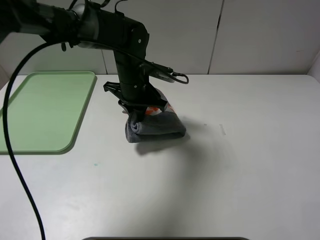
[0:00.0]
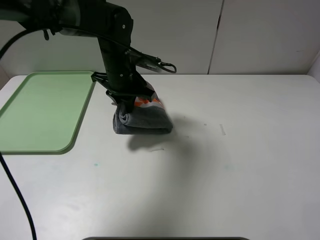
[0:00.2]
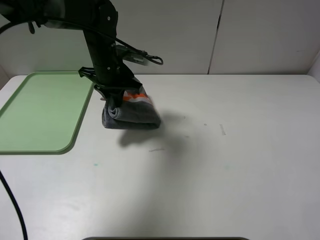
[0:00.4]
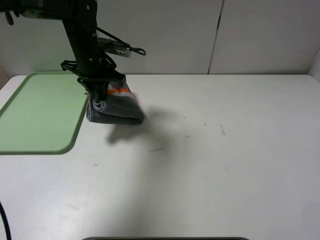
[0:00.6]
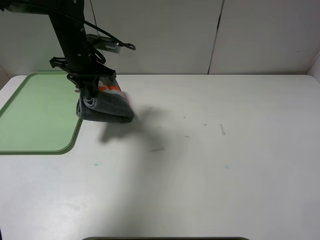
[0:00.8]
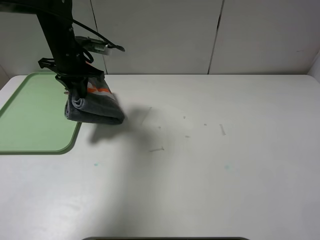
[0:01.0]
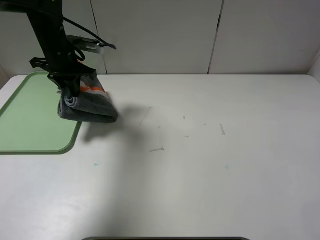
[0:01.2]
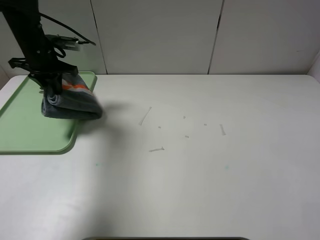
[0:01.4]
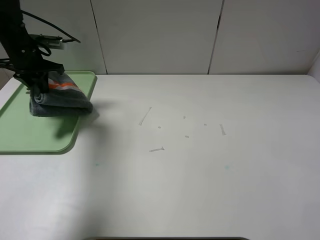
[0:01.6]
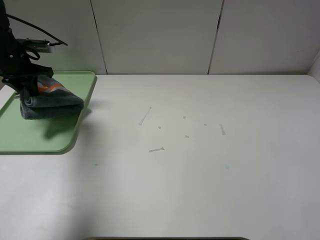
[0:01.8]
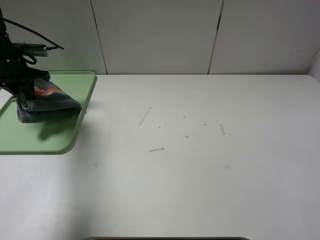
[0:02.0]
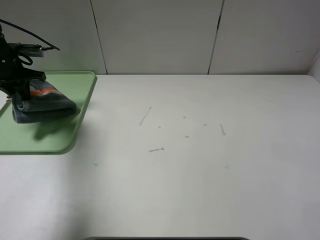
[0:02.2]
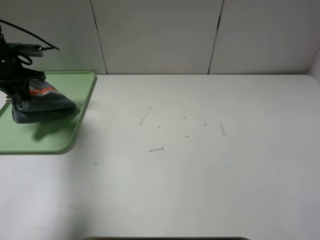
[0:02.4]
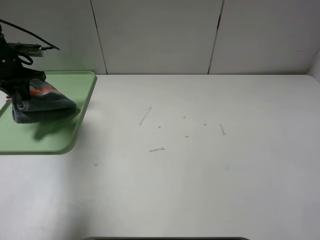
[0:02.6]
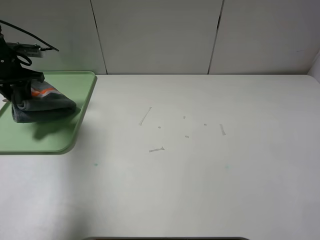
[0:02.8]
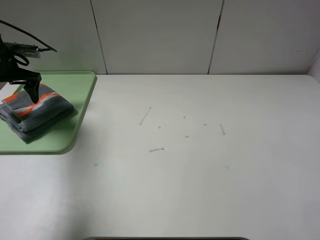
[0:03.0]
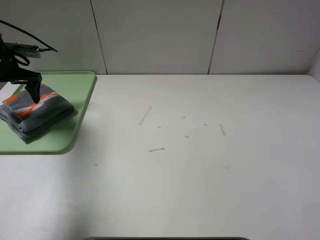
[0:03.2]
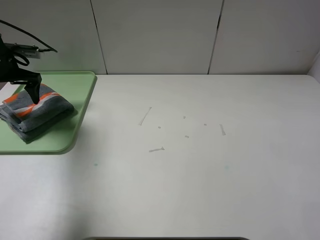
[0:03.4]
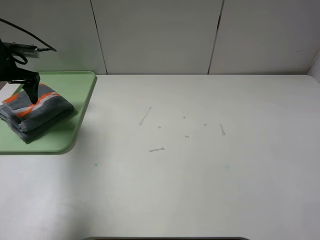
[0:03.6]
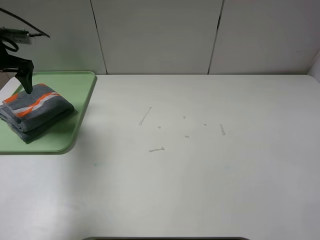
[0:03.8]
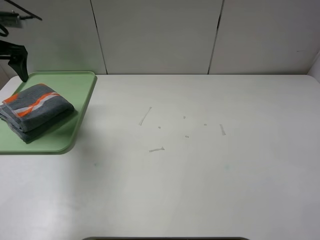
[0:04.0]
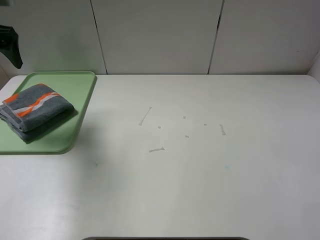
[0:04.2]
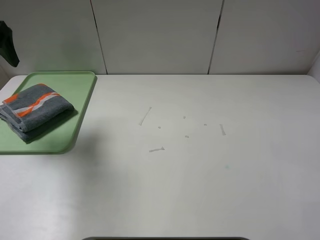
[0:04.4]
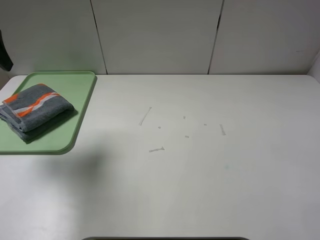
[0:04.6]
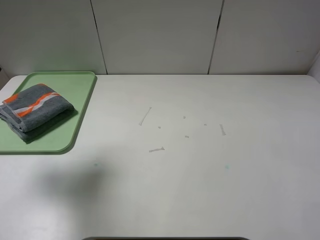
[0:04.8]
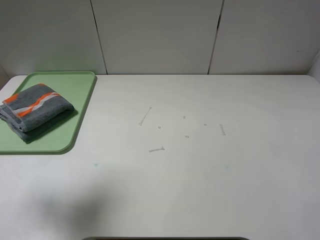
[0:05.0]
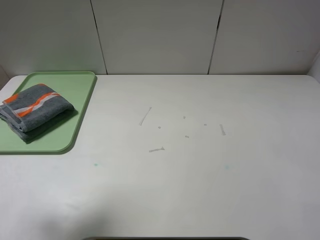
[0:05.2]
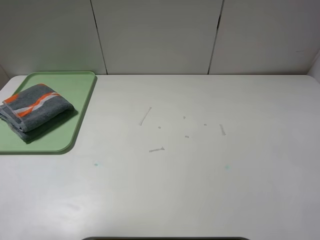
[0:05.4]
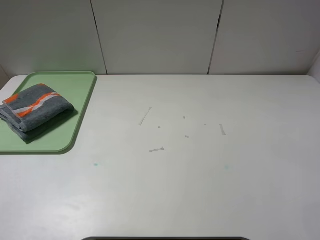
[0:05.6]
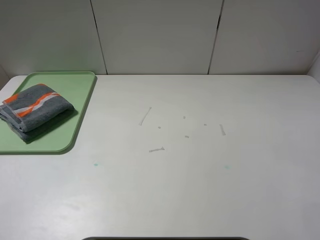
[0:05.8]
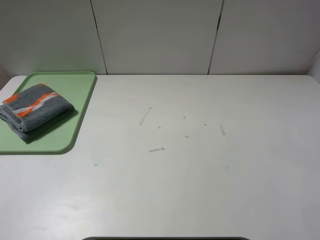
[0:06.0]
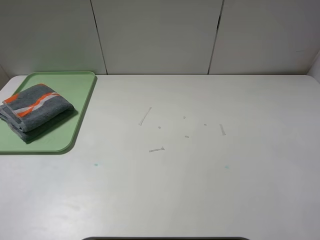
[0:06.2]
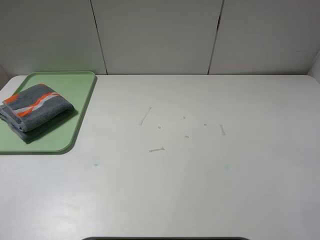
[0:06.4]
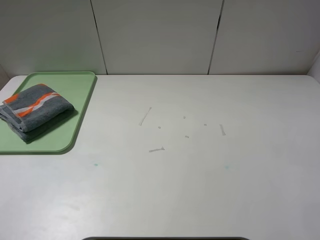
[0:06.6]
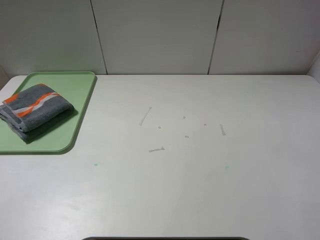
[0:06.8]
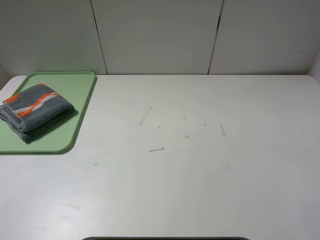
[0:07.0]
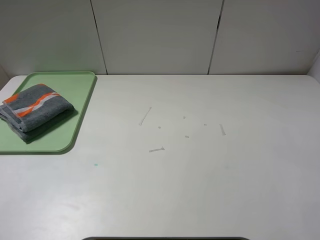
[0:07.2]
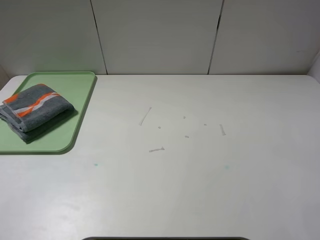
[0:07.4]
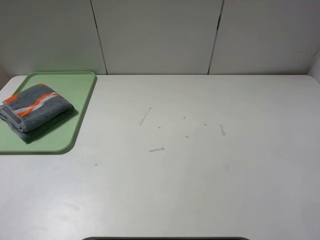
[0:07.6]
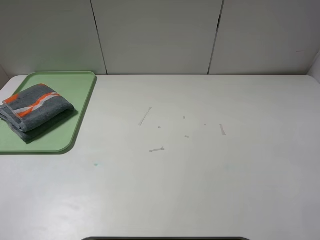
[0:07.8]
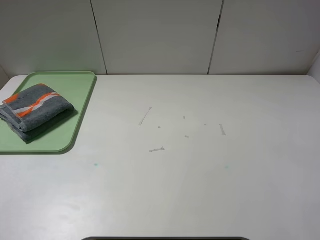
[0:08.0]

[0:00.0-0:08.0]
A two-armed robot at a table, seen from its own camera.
Step, 0:00.0 to 0:03.0: Place the folded grey towel on the tray with the left gripper.
0:00.0 to 0:01.6: The left gripper travels to the left by roughly 25 cm.
0:01.6 to 0:03.2: The left gripper travels to the left by roughly 5 cm, and opens its fingers.
0:03.2 to 0:04.8: The left gripper goes approximately 25 cm backward and upward.
0:04.8 to 0:06.4: The left gripper heads backward, covering about 25 cm.
